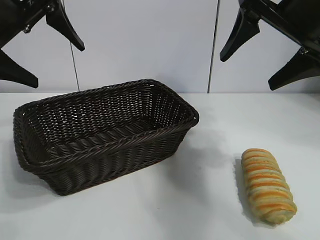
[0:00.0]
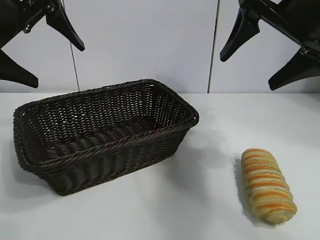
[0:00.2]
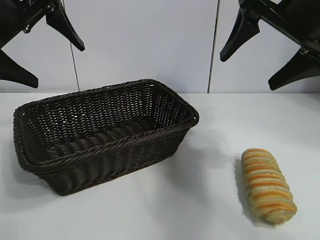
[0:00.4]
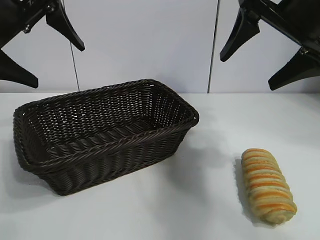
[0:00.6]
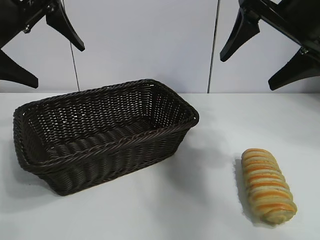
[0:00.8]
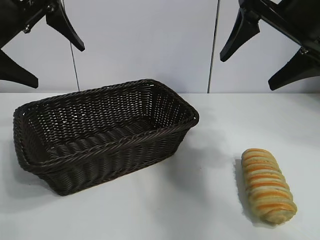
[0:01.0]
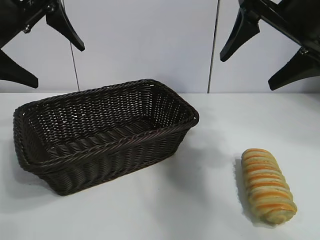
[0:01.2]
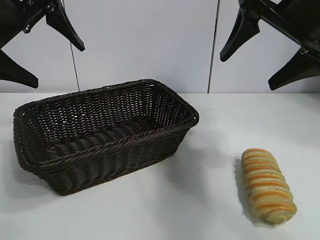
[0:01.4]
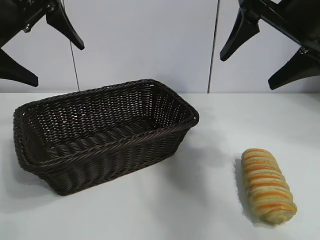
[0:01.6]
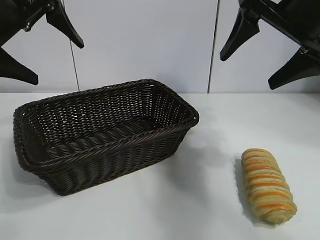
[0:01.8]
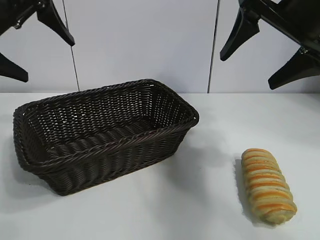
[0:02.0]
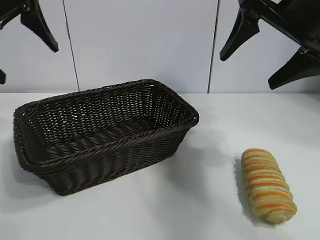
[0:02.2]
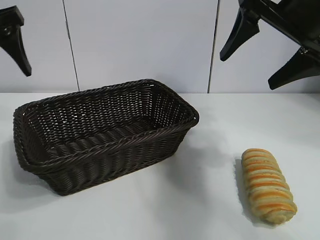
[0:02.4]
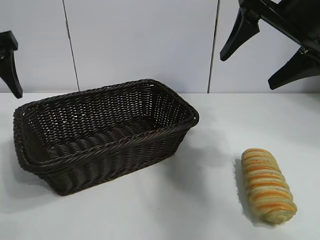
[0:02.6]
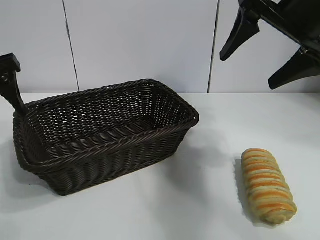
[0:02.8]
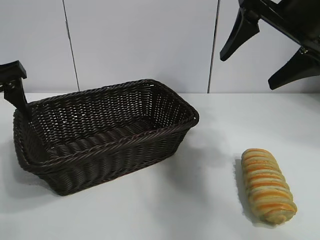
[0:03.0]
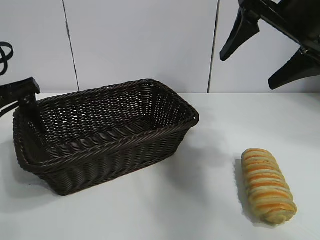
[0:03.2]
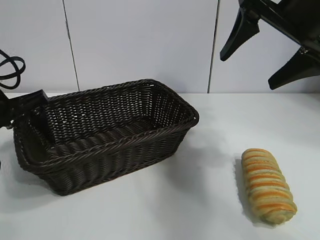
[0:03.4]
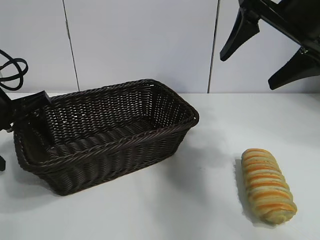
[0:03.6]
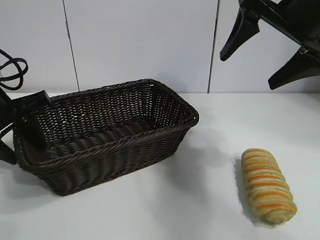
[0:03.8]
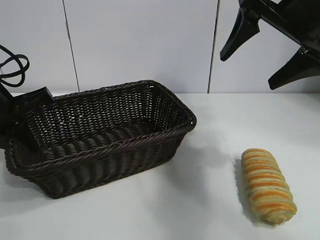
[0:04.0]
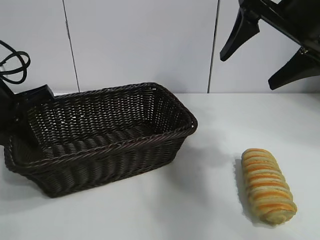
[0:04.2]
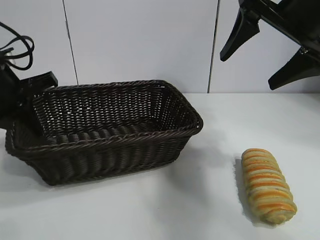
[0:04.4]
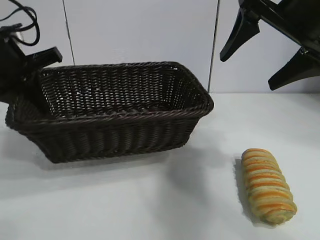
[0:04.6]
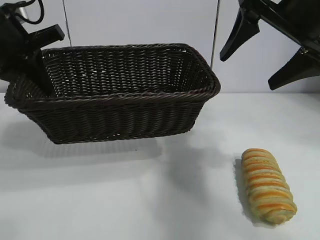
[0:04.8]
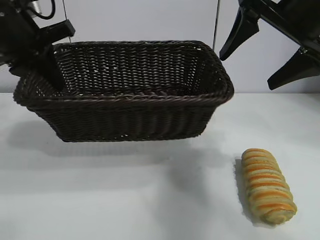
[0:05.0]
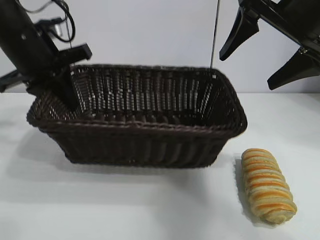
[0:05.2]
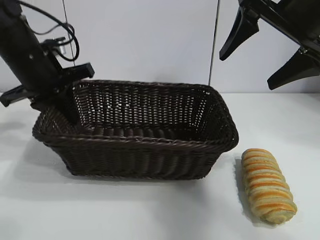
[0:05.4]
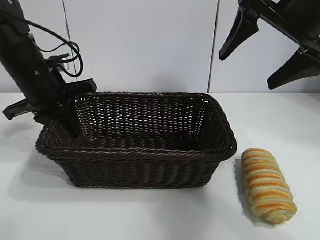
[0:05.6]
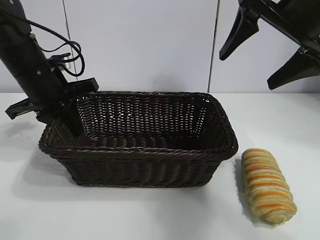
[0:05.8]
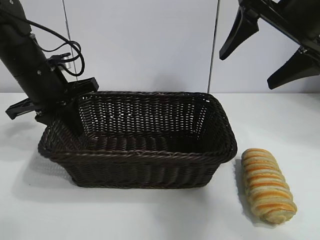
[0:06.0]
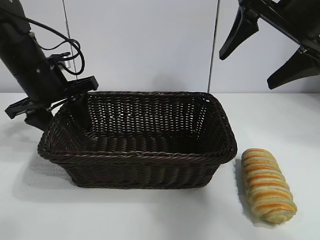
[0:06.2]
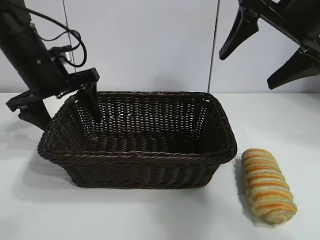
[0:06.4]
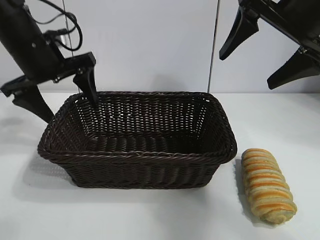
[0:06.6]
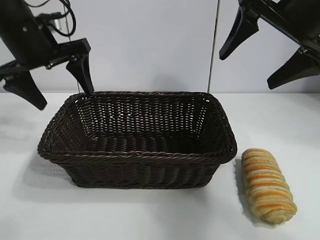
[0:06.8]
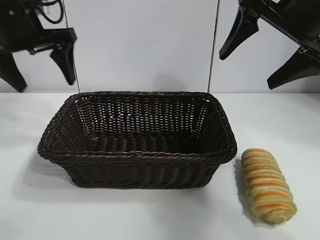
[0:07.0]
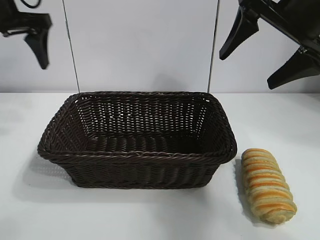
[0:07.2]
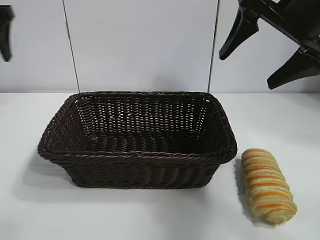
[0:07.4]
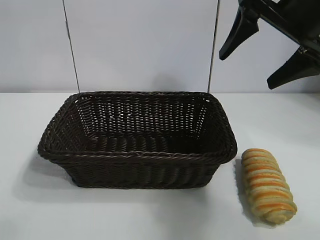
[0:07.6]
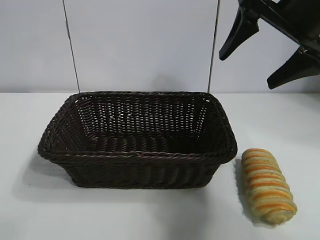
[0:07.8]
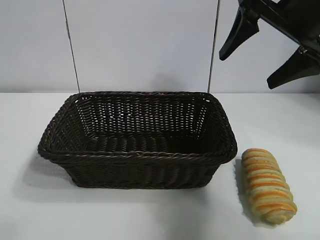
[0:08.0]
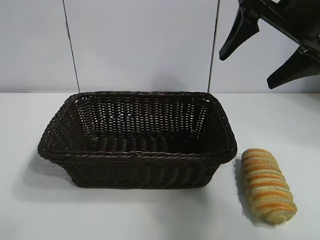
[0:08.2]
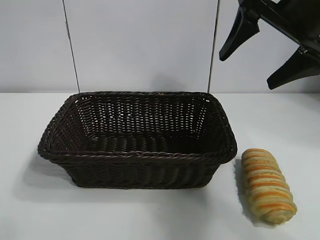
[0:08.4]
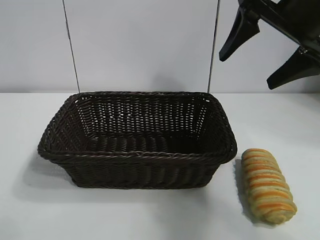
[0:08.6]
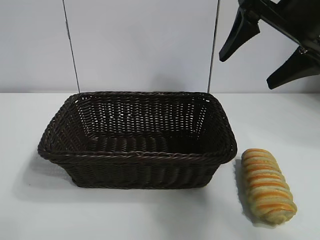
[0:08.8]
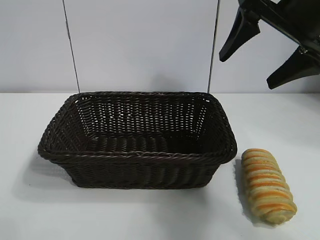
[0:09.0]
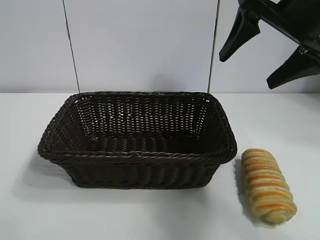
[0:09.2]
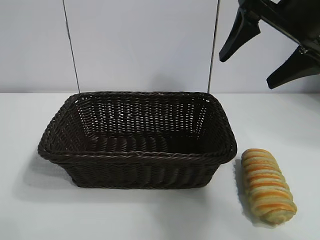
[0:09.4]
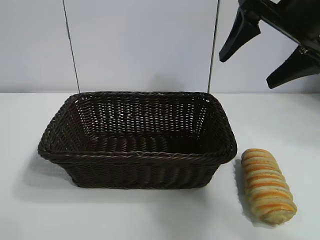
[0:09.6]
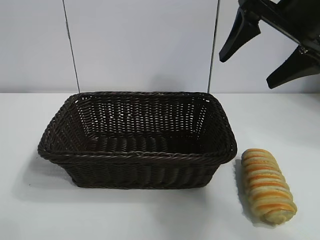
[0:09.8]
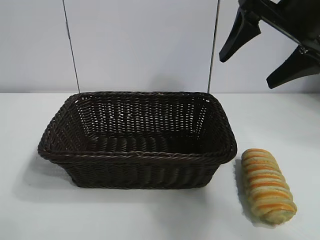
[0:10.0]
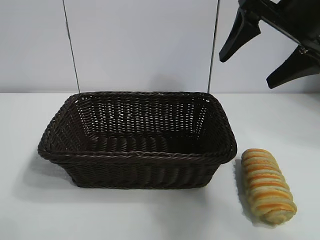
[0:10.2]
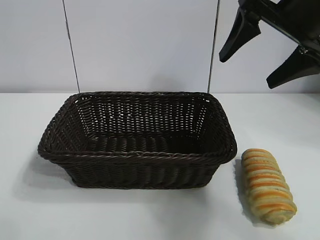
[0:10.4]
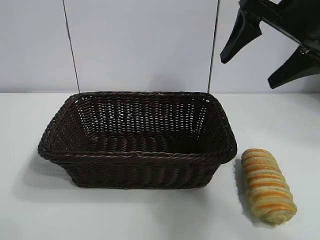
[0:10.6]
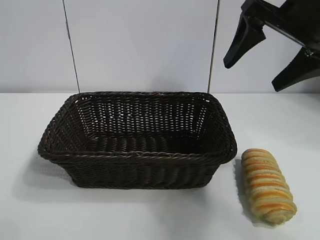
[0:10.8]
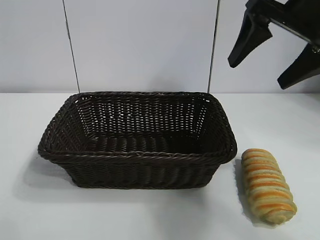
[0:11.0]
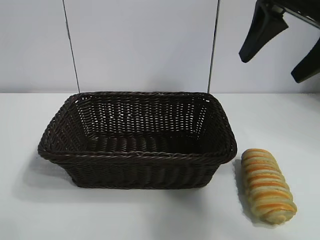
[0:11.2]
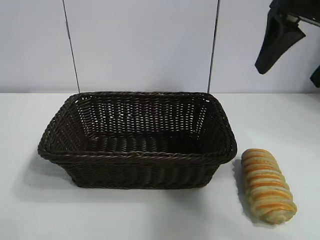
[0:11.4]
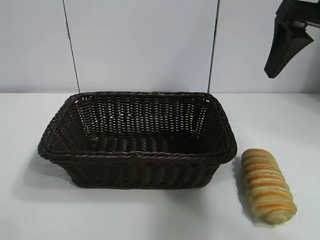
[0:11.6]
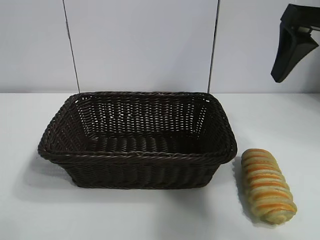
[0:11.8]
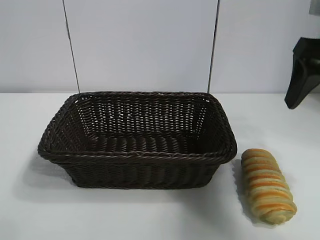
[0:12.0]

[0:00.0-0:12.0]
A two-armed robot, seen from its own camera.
Task of the whole recording: pick up the long bread and put it into the basket.
Step, 0:01.6 to 0:03.8: Grasp the basket with the left gripper.
Step, 0:04.2 to 0:06.2: Place the basket in the center of the table with the left gripper.

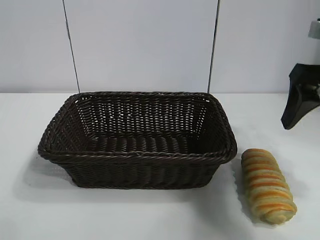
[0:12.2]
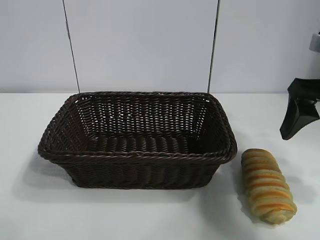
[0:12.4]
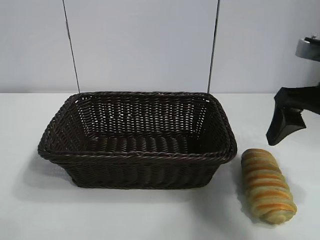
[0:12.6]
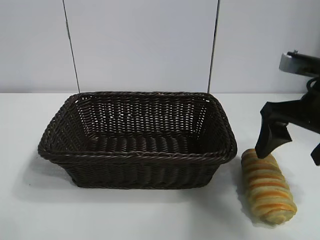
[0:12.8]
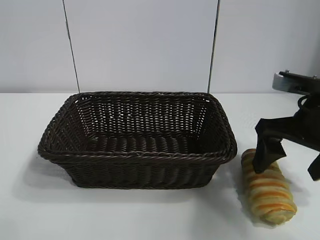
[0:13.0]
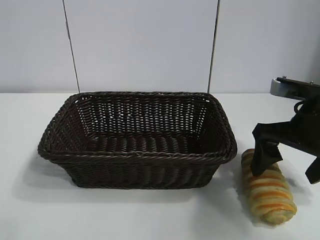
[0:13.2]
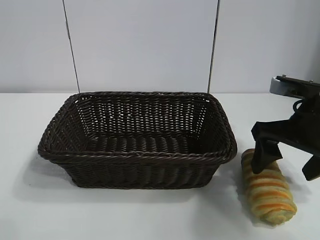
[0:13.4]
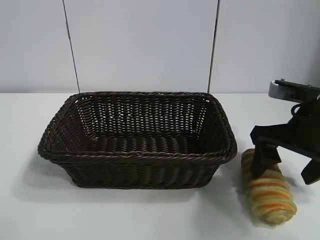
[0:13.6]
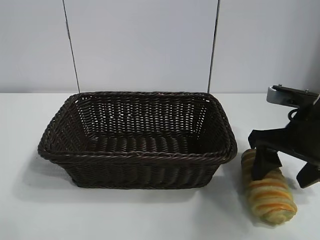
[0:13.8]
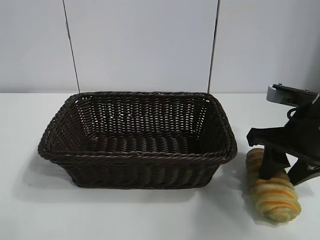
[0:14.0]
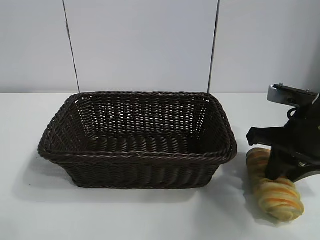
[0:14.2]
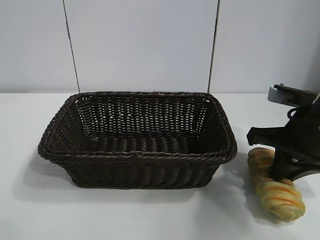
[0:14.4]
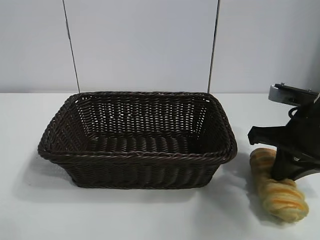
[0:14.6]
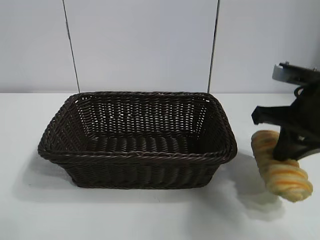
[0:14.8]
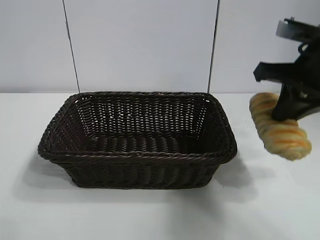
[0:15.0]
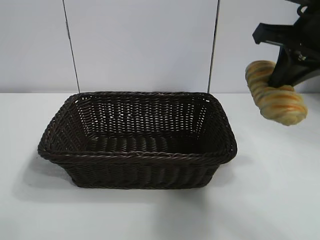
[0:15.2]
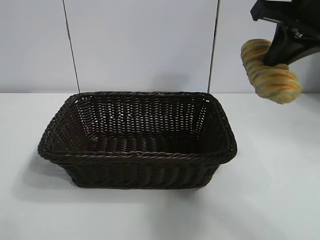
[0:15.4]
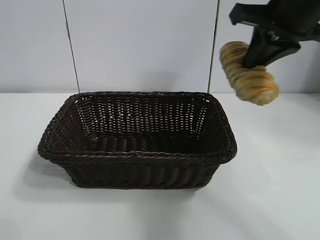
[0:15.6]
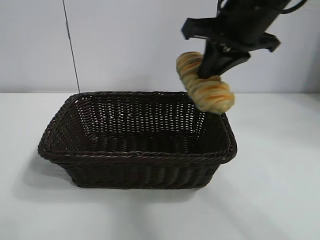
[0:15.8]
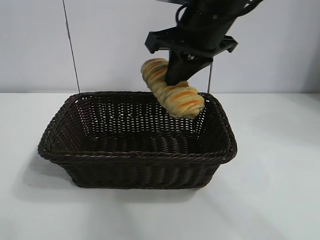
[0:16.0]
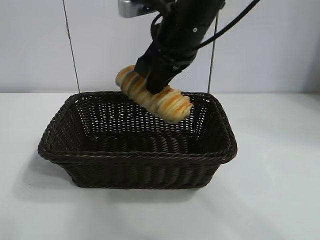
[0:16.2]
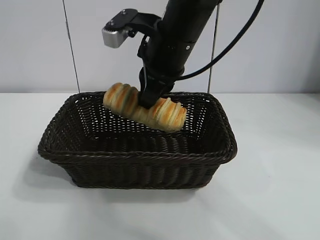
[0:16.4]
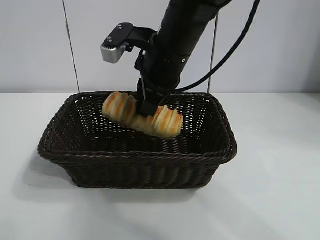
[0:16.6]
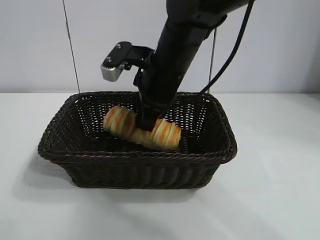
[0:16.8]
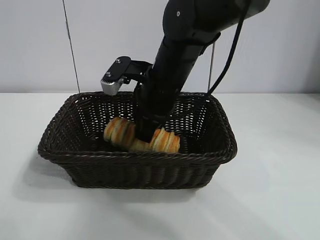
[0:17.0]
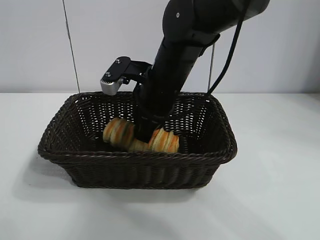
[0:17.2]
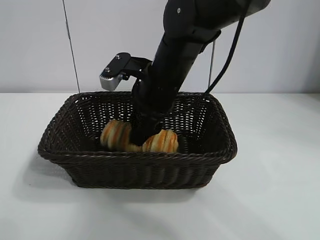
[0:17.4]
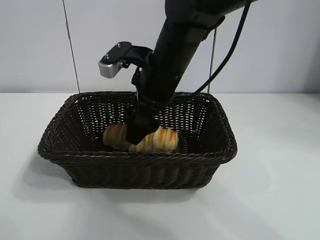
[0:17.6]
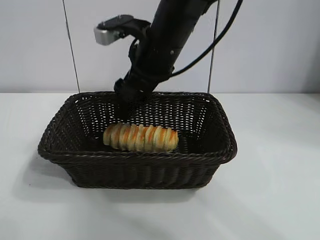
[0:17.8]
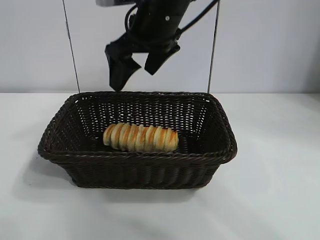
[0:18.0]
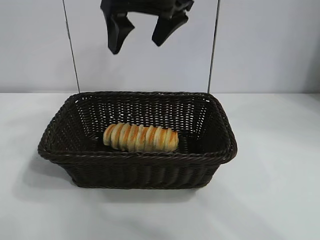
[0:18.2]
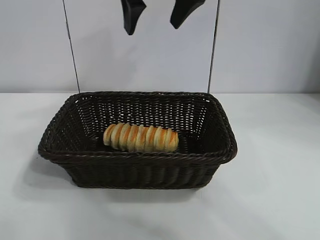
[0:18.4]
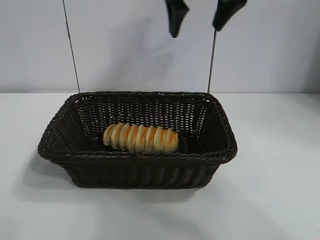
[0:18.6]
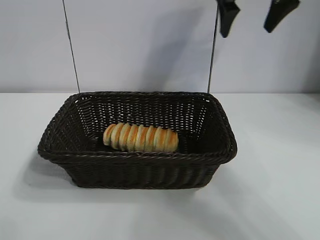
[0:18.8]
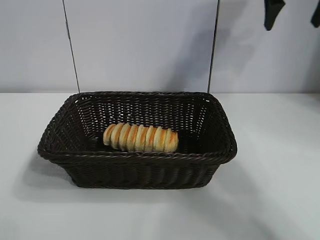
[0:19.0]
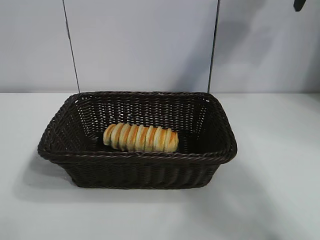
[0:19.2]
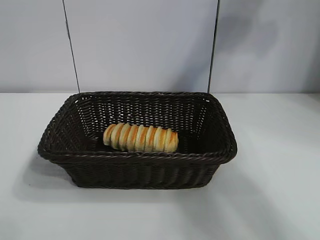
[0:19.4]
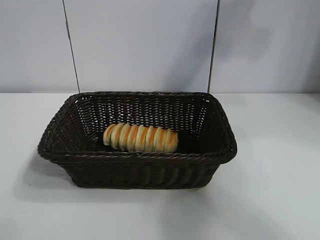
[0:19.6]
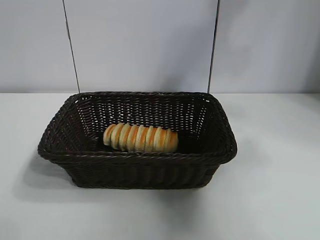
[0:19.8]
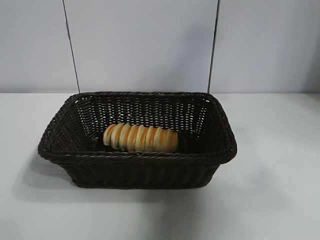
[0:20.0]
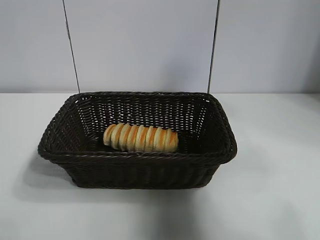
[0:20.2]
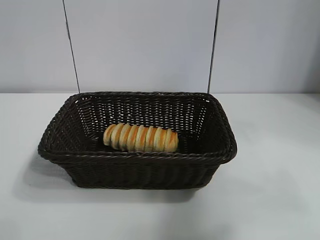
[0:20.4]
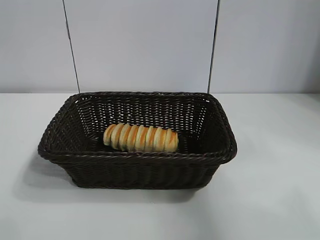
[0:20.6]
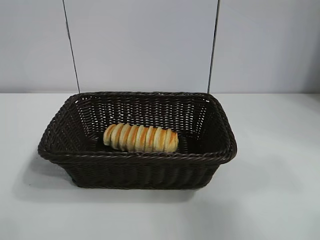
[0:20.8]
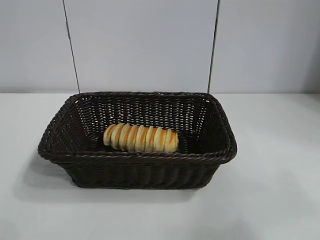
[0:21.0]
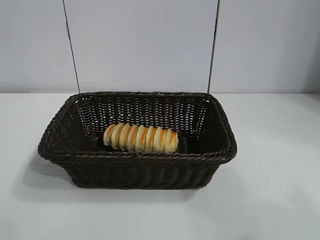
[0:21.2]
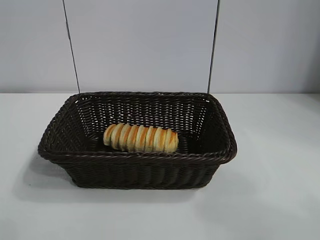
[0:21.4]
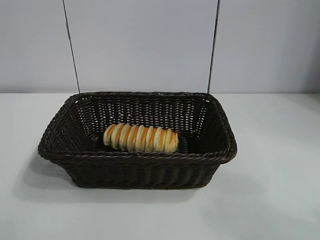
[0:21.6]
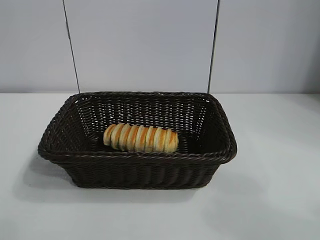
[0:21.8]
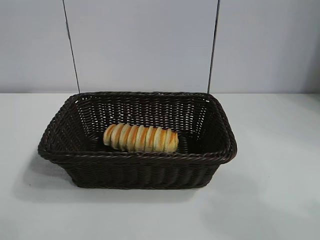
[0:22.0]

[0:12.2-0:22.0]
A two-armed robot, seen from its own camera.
Task of the whole recording: pick up the long bread and put it into the basket.
Step, 0:12.2 to 0:14.4: Grasp the long bread with right gripper.
Step, 0:14.6 to 0:17.8: Place the long bread in the basket with right gripper.
